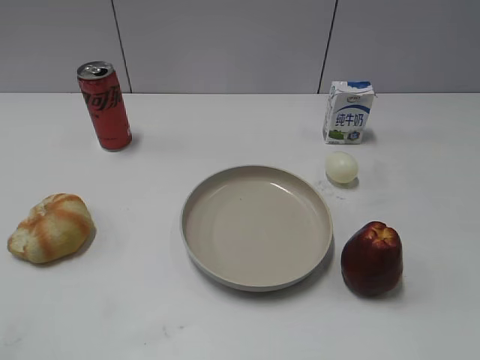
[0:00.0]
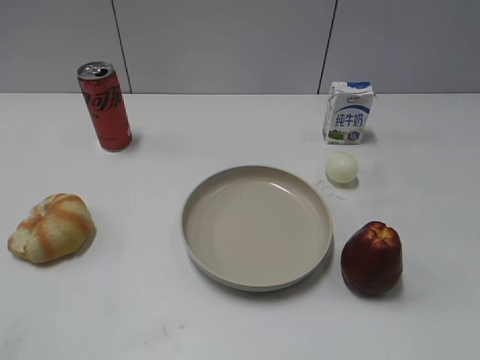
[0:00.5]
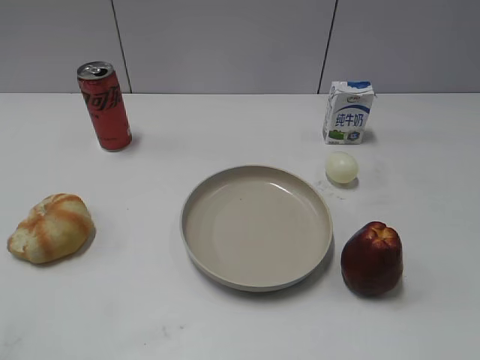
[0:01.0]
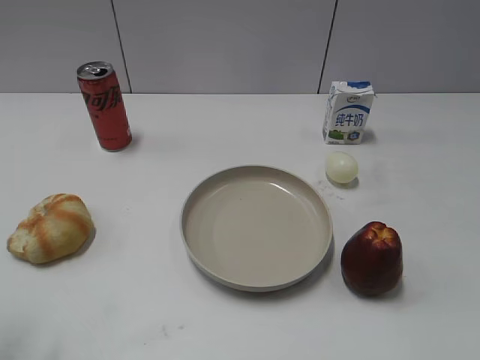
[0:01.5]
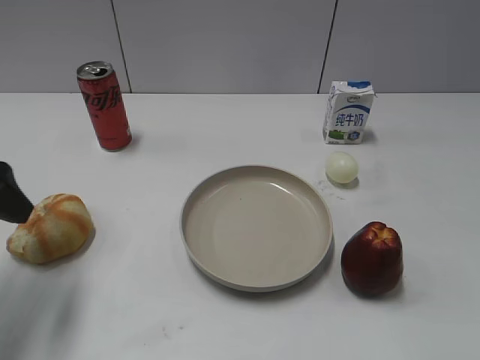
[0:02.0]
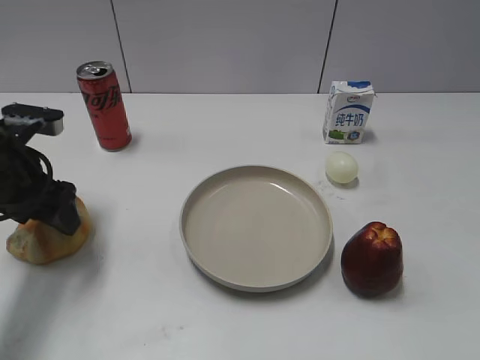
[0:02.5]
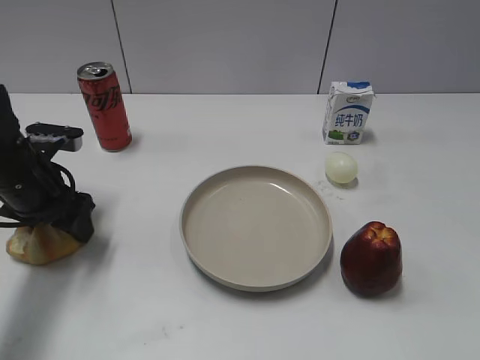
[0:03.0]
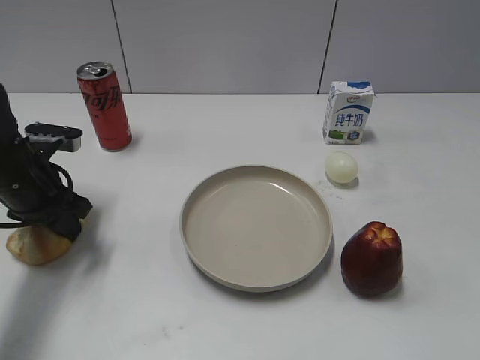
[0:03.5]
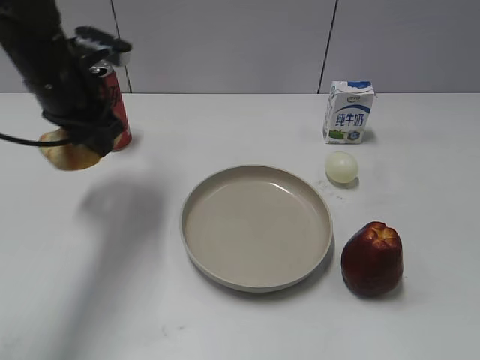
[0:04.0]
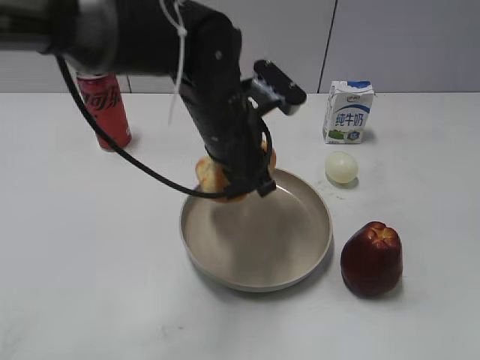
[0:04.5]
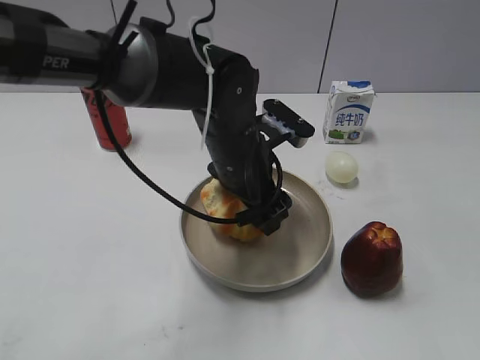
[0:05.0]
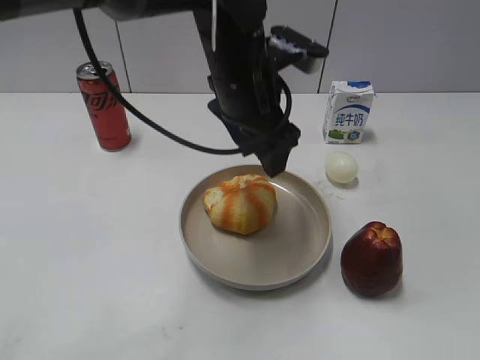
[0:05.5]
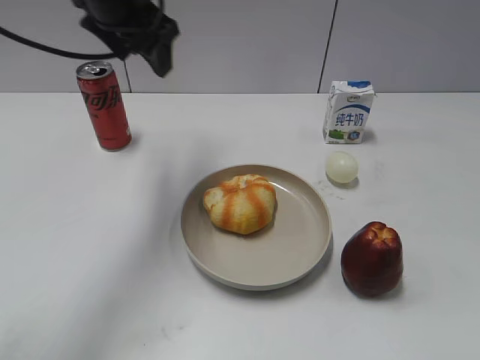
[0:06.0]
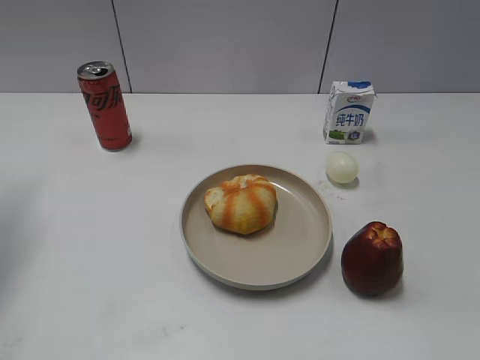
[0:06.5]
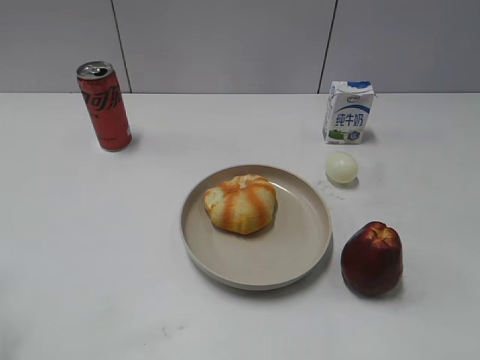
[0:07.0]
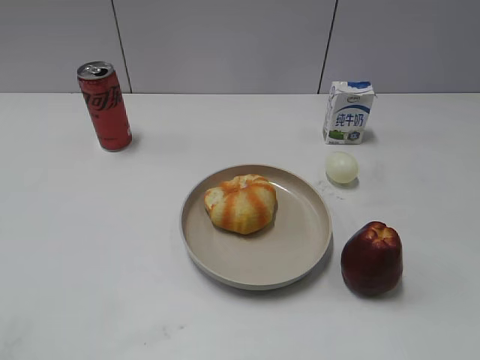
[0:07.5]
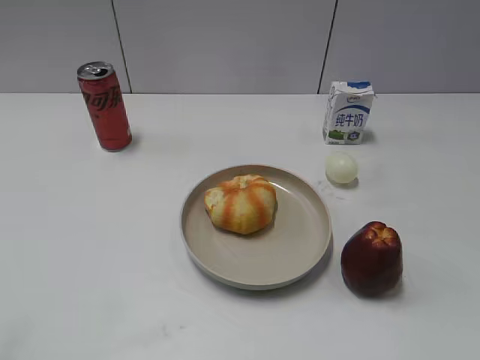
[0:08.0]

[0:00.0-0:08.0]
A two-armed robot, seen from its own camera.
Step, 0:01.0 to 0:03.0: Grasp the round bread with left gripper.
Step, 0:04.0 to 0:05.5: Place the round bread on the plate with left gripper.
0:02.0 to 0:04.0: The left gripper heads forward and to the right, covering some 15 cm, and closes.
0:04.0 to 0:06.0: The left gripper moves upward, about 10 cm, goes to the right and returns, some 20 cm each way, and opens its fingers.
0:06.0 to 0:08.0: The left gripper is displaced backward and to the left by about 40 cm.

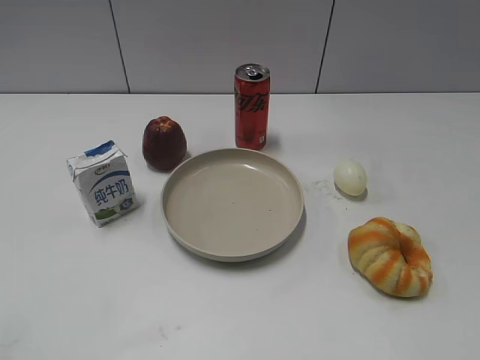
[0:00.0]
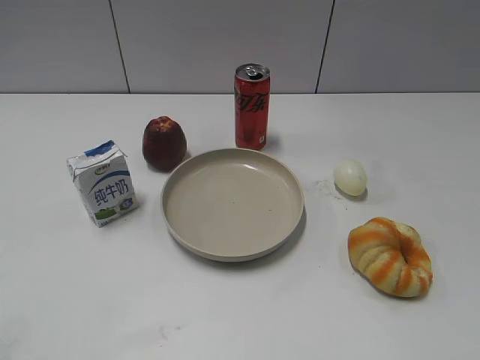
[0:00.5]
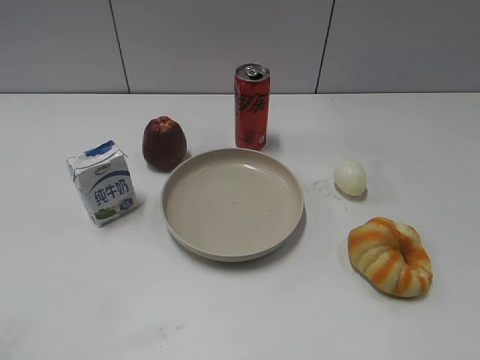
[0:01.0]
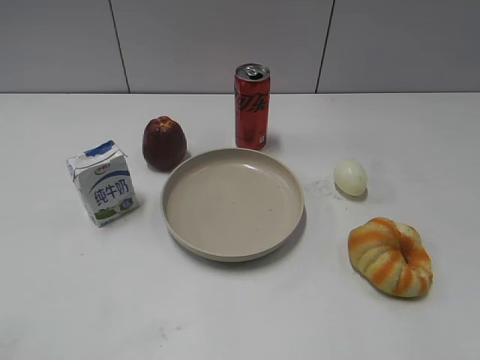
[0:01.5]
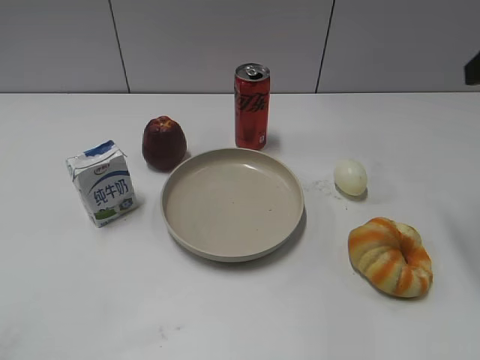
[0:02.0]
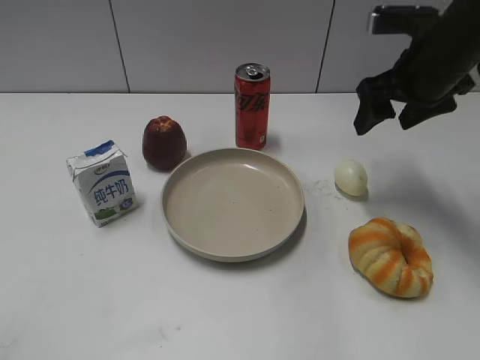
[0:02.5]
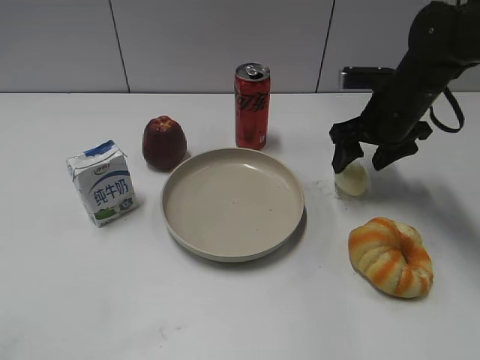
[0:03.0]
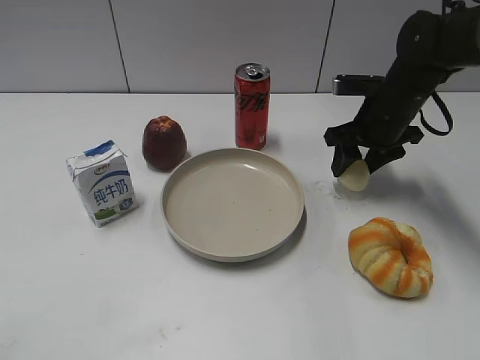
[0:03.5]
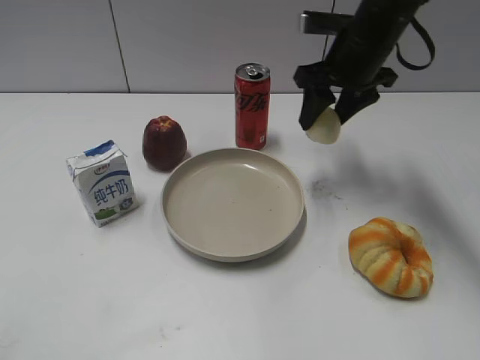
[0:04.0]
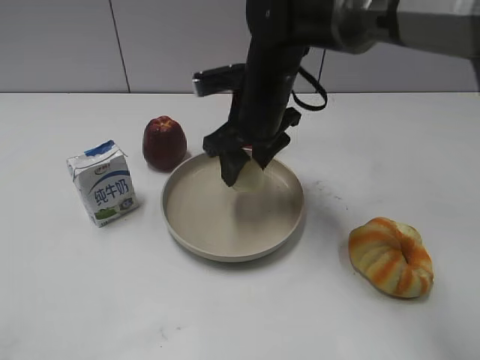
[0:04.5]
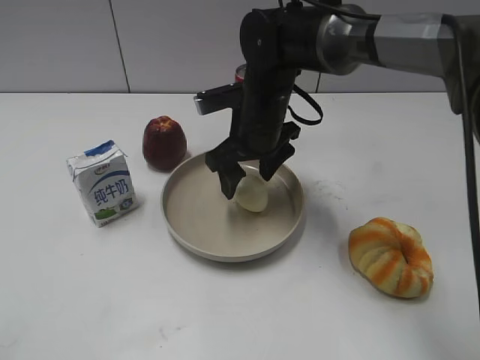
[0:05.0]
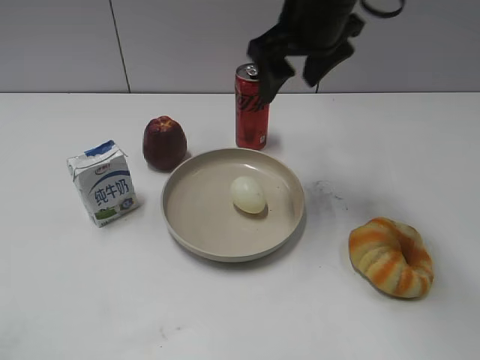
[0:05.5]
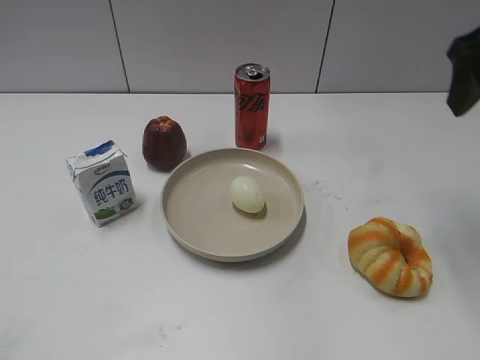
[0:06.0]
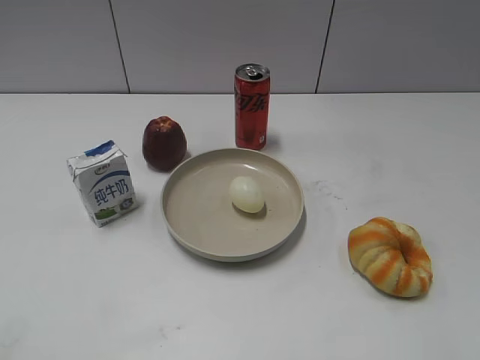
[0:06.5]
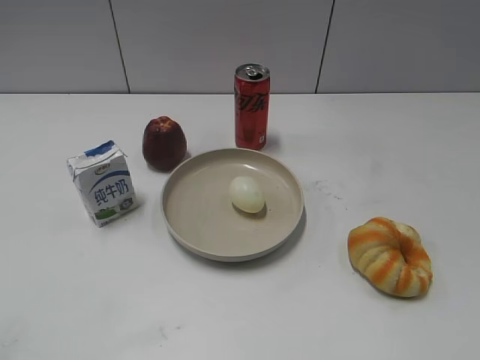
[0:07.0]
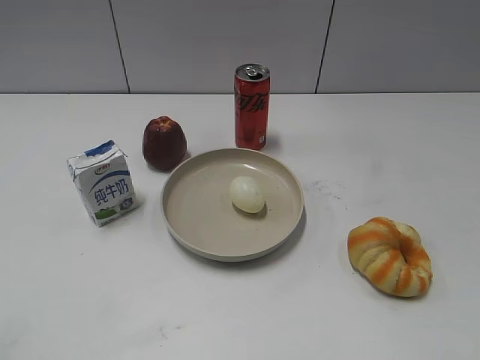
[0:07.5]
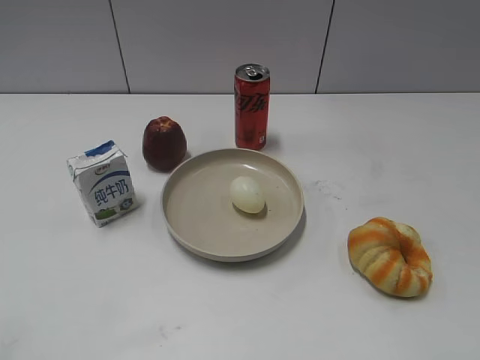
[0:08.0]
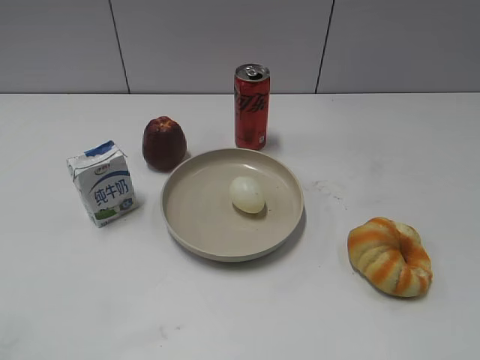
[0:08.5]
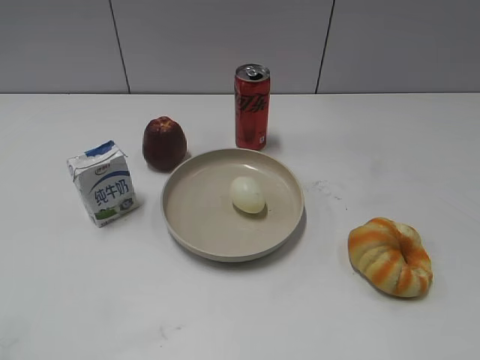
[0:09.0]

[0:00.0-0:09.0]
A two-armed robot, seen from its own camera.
Step, 0:00.0 to 0:03.0: Grasp the egg with right gripper.
Step, 0:03.5 to 0:05.0: Place the egg on the plate with right gripper.
0:02.0 to 0:04.5: The right gripper shifts roughly 30 cm to the left and downward, and closes up.
0:04.5 to 0:07.0: The right gripper heads backward and to the right, covering some 50 cm, and opens.
